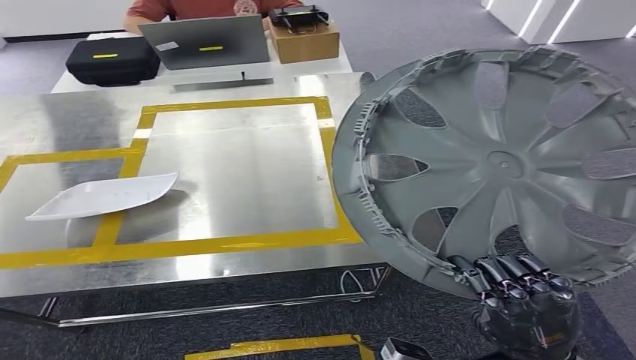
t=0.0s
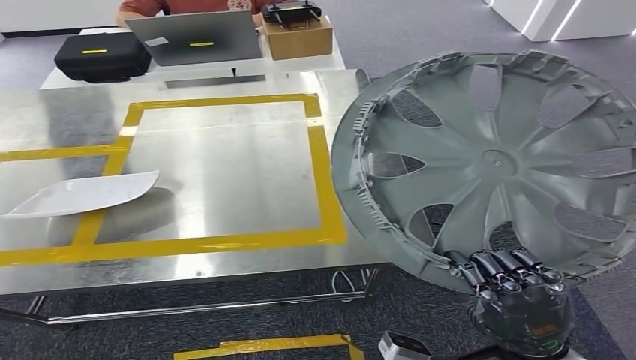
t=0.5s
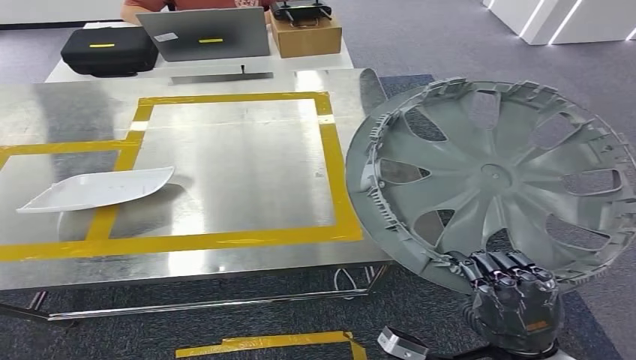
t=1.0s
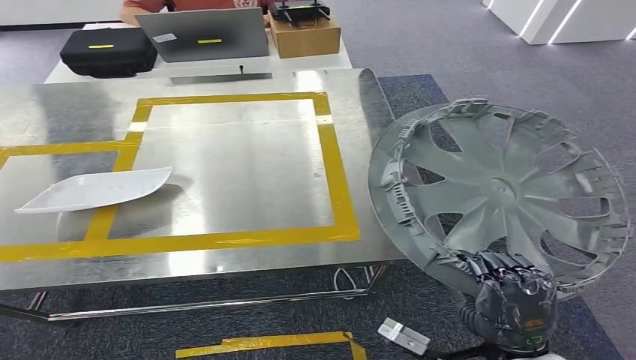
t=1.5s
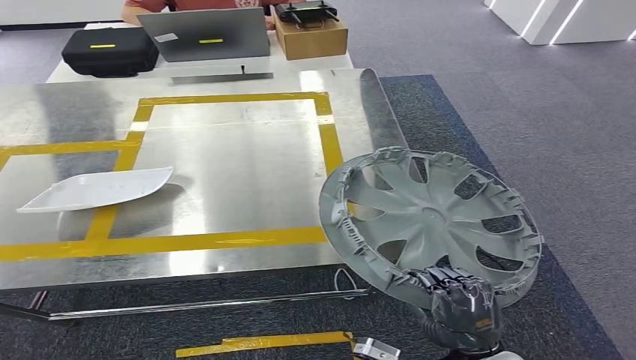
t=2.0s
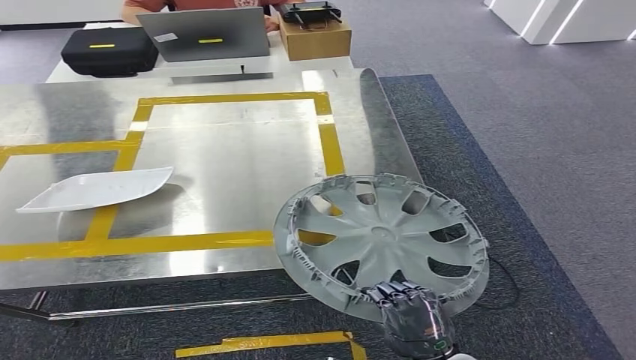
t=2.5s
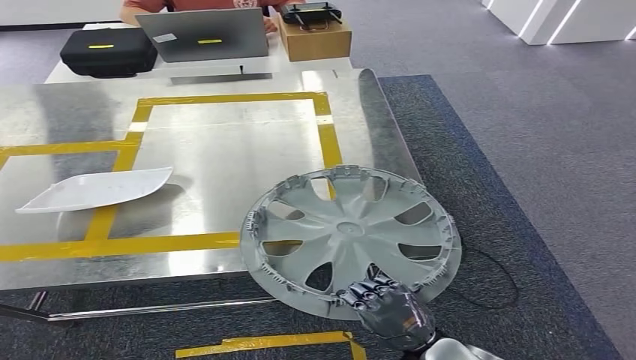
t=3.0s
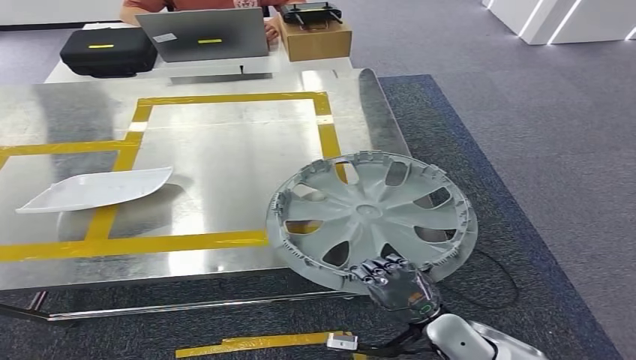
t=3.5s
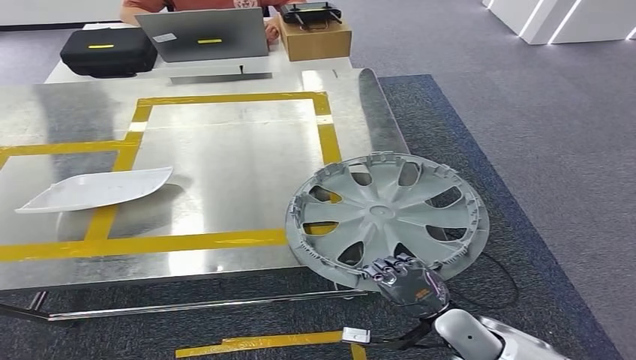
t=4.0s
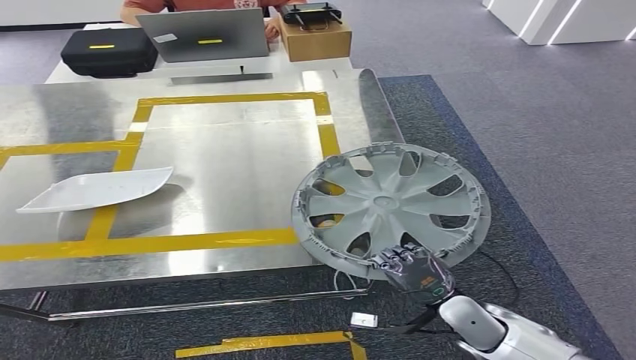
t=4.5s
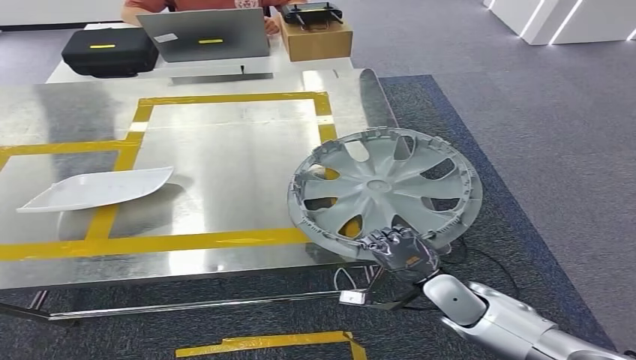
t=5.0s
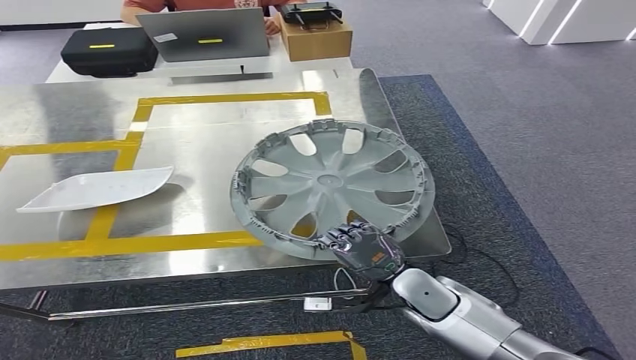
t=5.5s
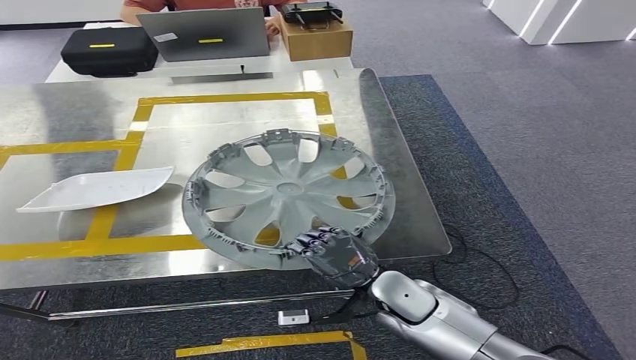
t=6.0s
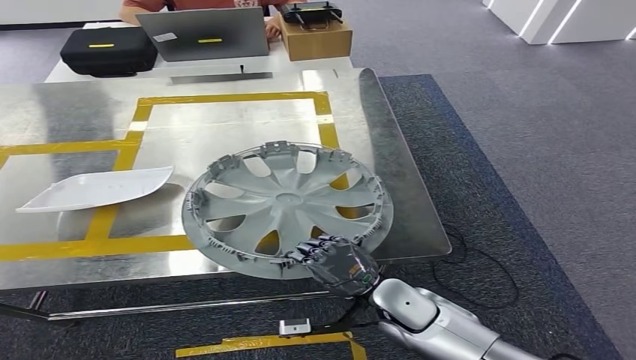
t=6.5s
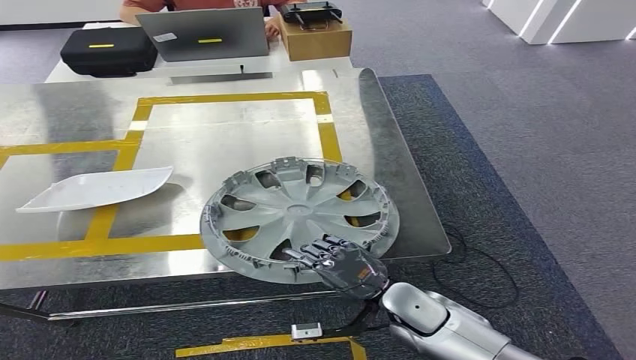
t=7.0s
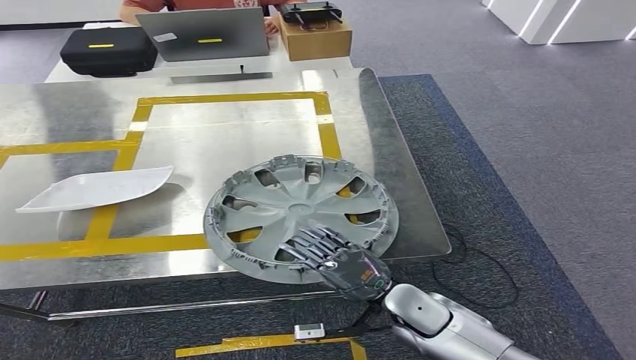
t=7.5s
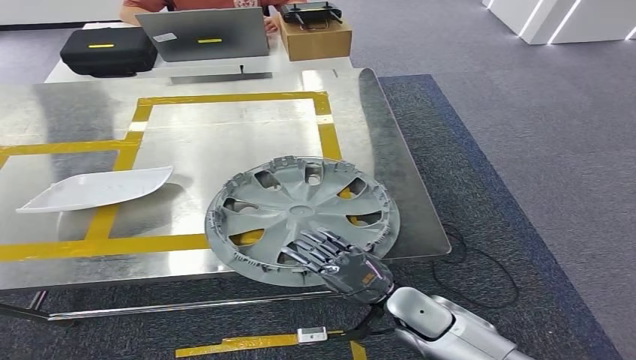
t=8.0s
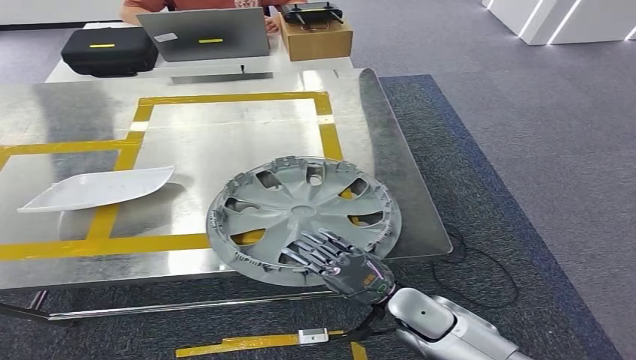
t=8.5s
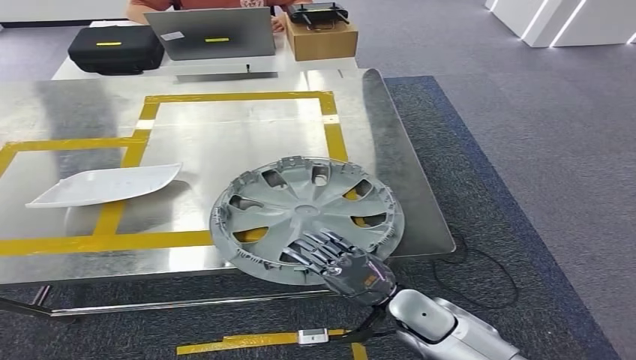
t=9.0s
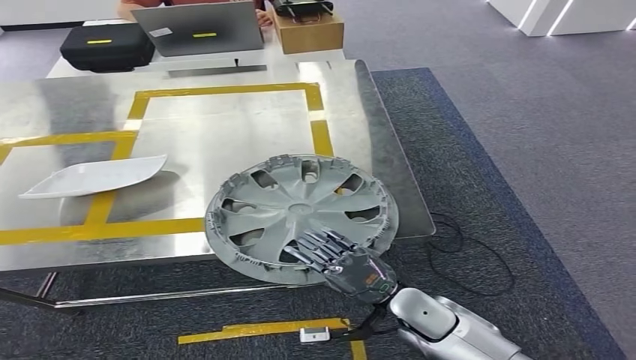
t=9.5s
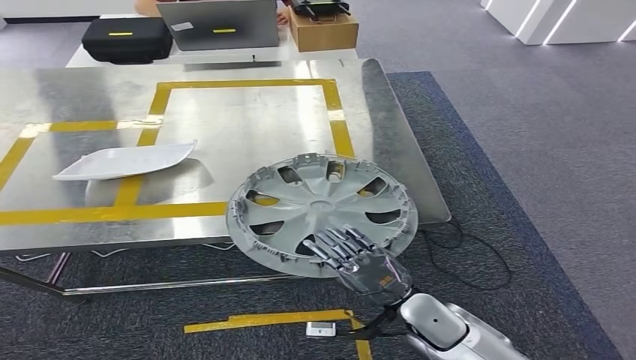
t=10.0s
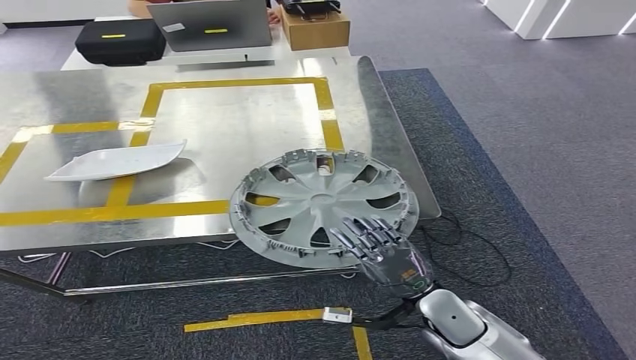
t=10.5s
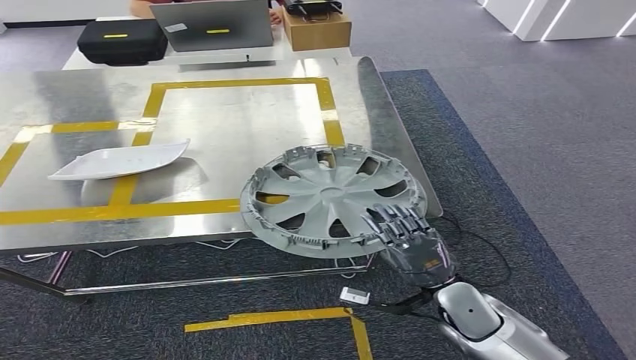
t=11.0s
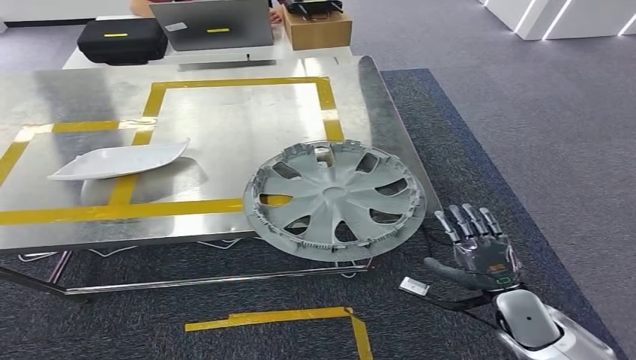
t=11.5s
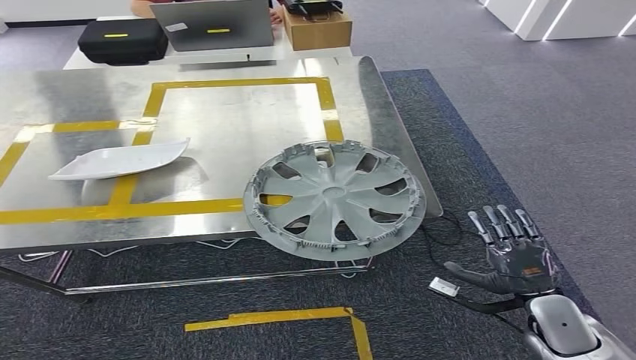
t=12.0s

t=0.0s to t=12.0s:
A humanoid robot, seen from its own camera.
t=2.0s to t=4.0s: The right hand moves forward and downward, about 10 cm.
t=4.0s to t=6.0s: The right hand travels to the left and forward by approximately 10 cm.
t=6.0s to t=8.0s: The hands move only a little.
t=10.0s to t=12.0s: The right hand moves to the right, some 15 cm.

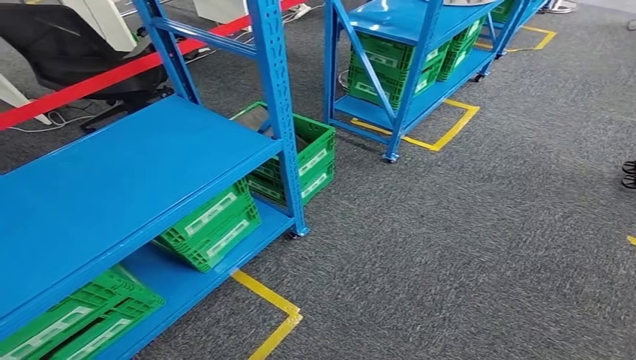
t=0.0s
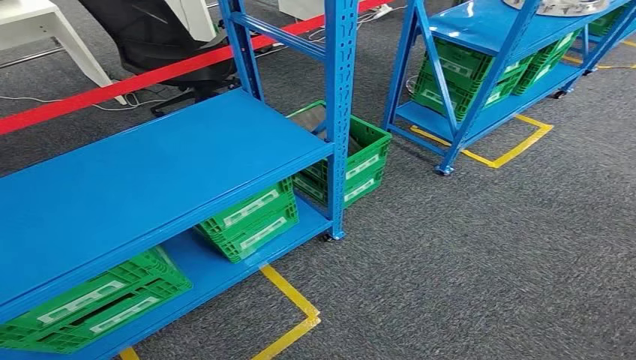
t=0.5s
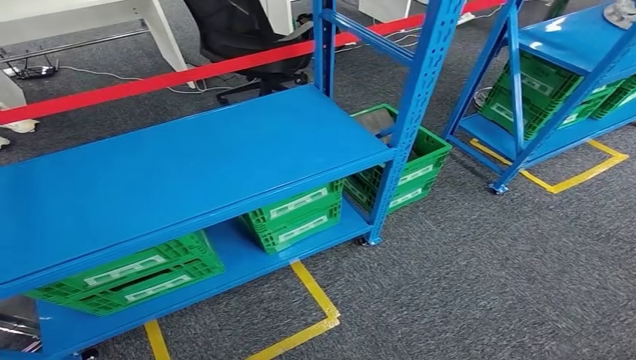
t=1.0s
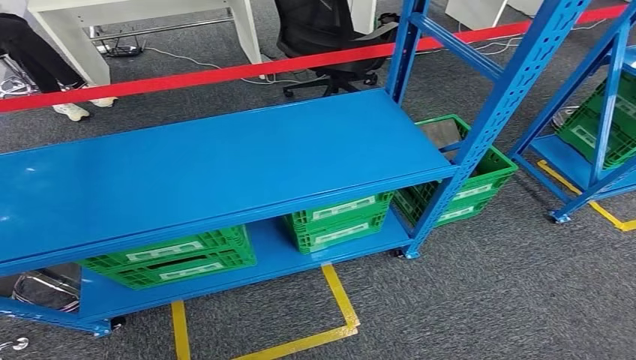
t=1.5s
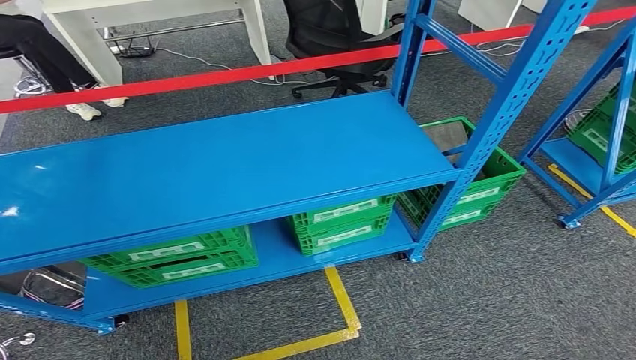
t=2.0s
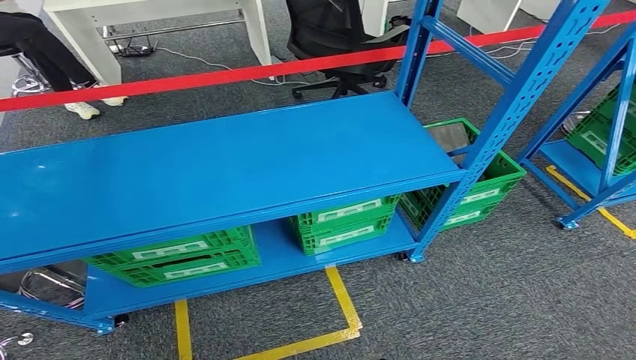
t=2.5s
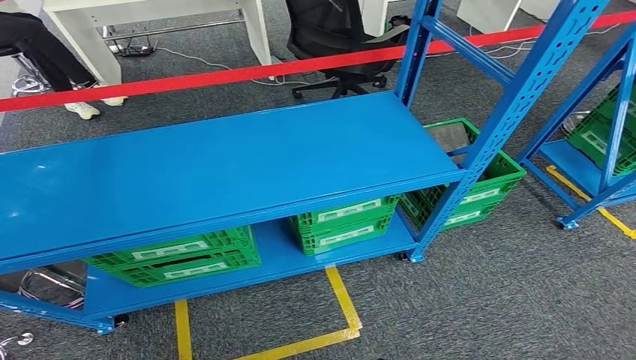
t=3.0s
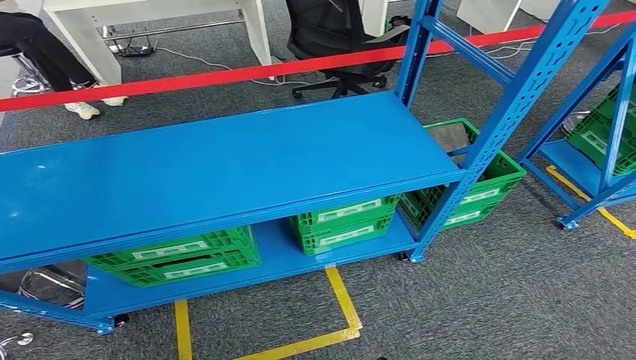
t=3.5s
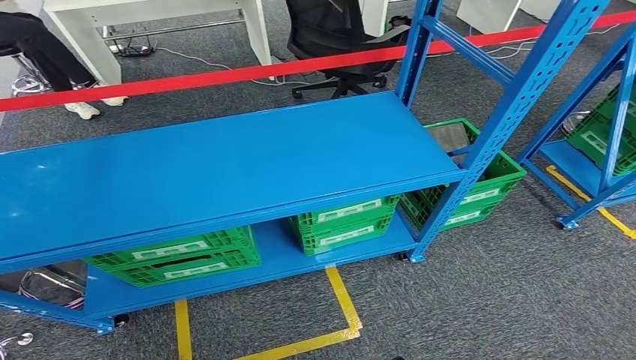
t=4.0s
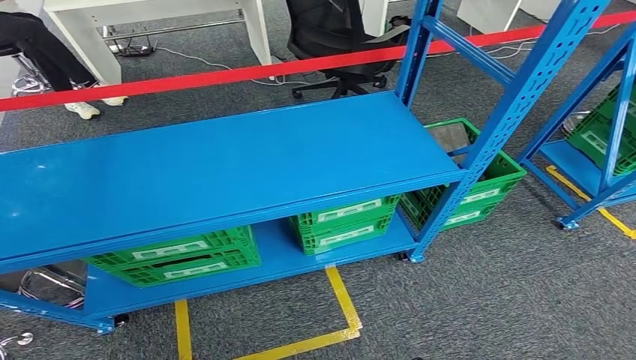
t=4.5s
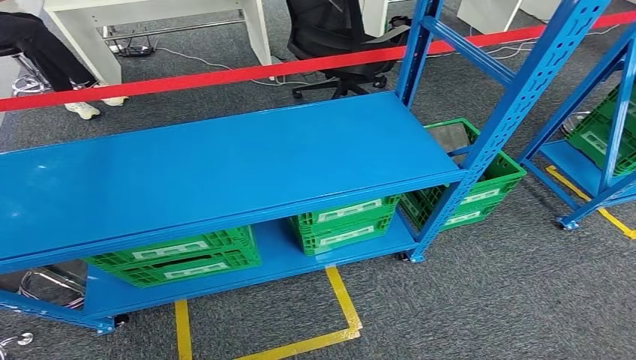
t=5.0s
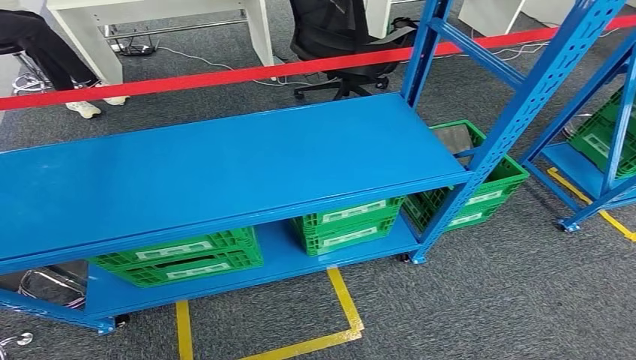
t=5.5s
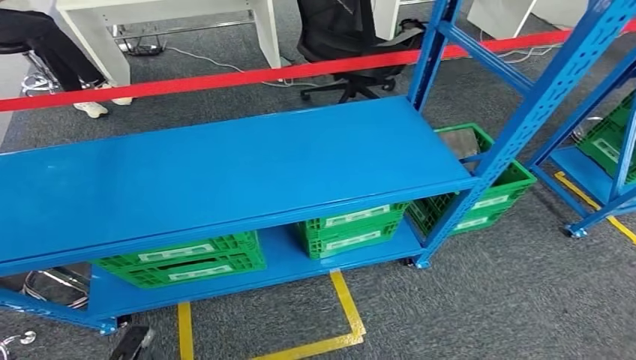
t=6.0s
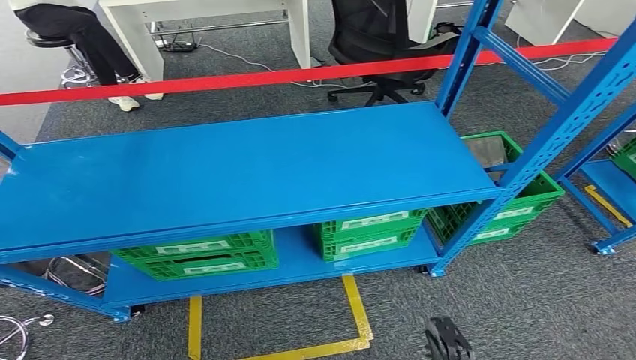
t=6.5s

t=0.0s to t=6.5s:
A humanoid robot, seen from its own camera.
Step, t=0.0s to t=6.5s: Return to the initial position at the workbench.
t=2.0s to t=4.5s: The left hand ends up roughly 5 cm from where it was.
